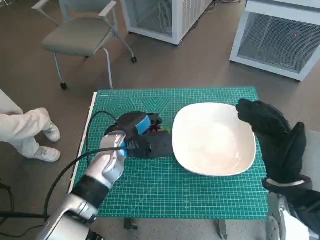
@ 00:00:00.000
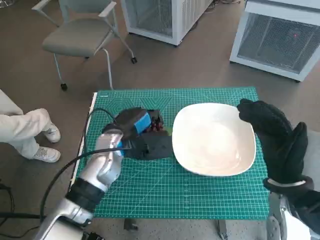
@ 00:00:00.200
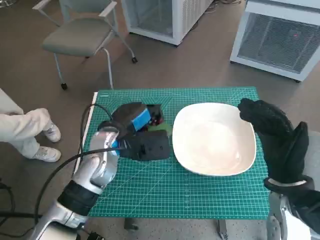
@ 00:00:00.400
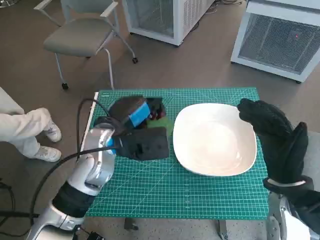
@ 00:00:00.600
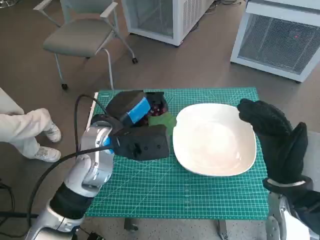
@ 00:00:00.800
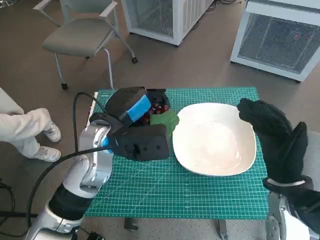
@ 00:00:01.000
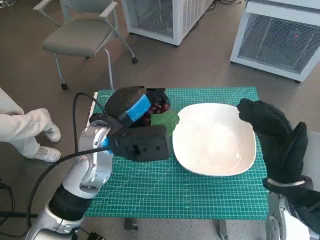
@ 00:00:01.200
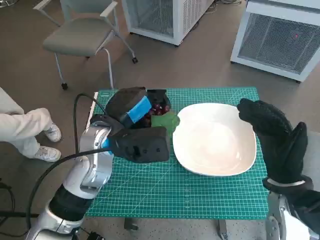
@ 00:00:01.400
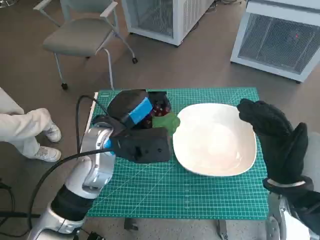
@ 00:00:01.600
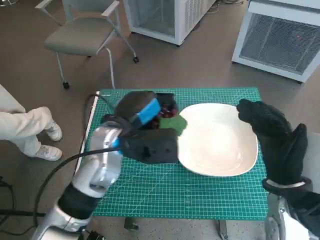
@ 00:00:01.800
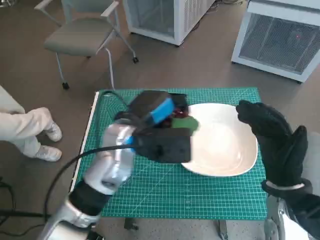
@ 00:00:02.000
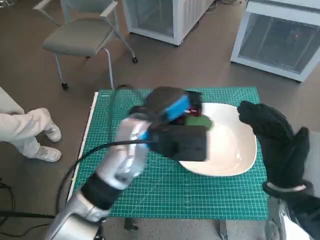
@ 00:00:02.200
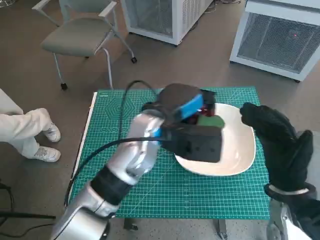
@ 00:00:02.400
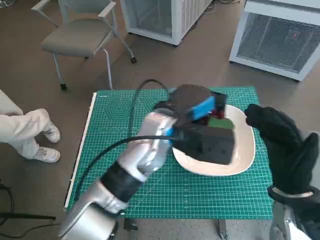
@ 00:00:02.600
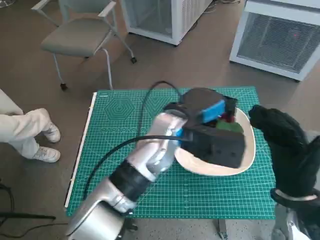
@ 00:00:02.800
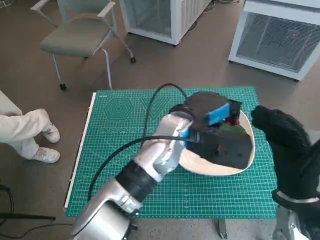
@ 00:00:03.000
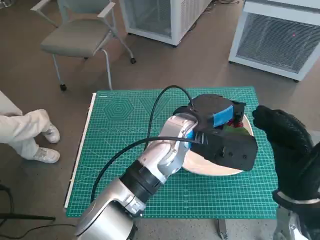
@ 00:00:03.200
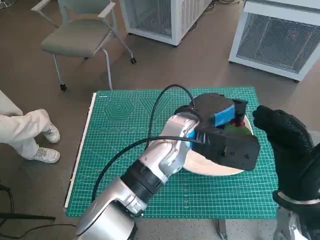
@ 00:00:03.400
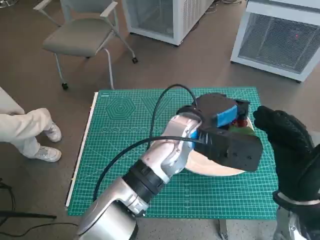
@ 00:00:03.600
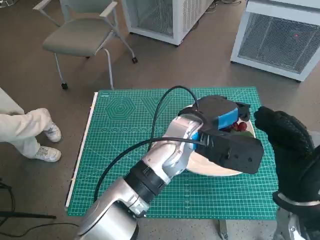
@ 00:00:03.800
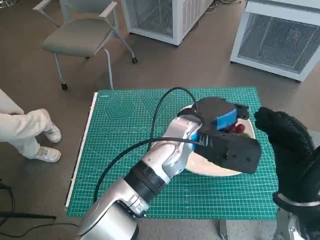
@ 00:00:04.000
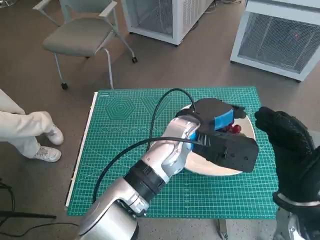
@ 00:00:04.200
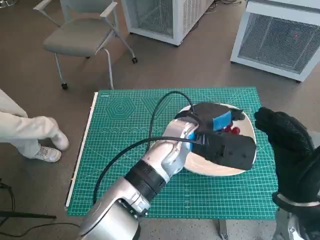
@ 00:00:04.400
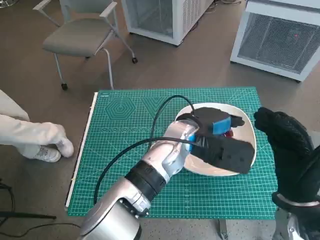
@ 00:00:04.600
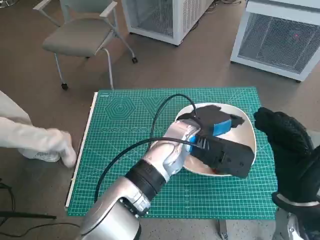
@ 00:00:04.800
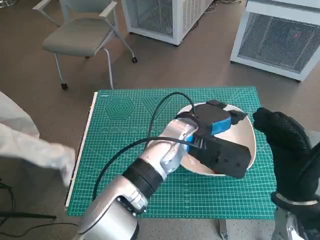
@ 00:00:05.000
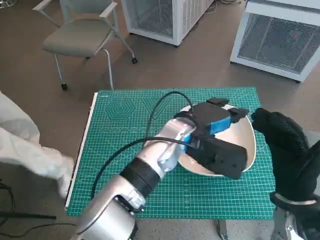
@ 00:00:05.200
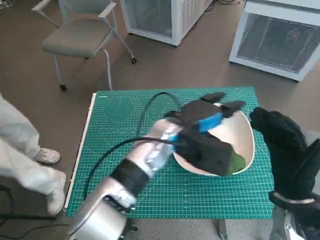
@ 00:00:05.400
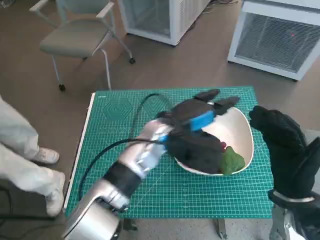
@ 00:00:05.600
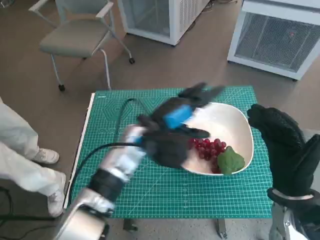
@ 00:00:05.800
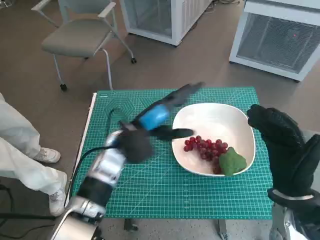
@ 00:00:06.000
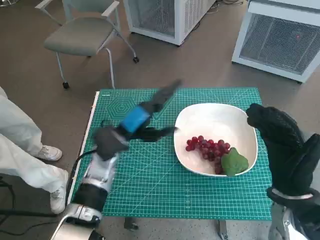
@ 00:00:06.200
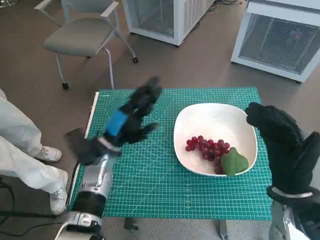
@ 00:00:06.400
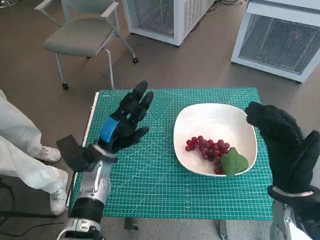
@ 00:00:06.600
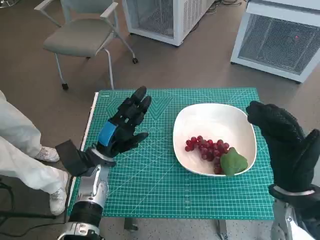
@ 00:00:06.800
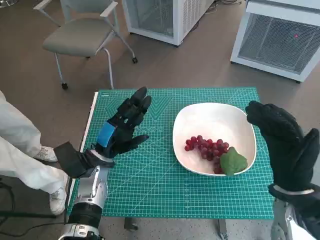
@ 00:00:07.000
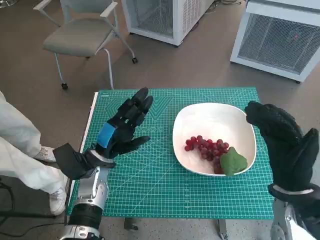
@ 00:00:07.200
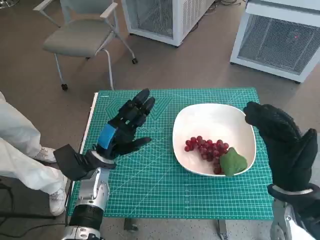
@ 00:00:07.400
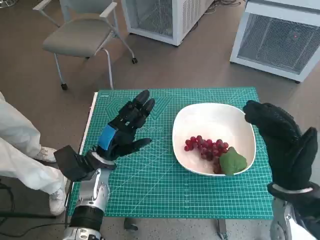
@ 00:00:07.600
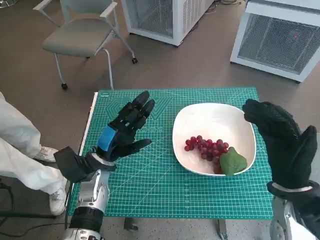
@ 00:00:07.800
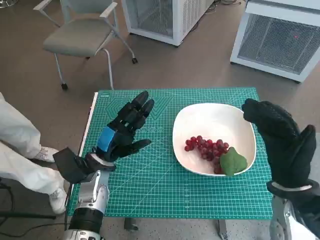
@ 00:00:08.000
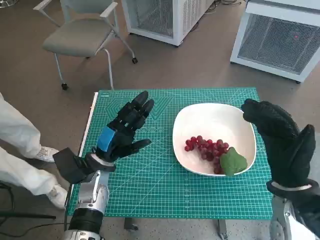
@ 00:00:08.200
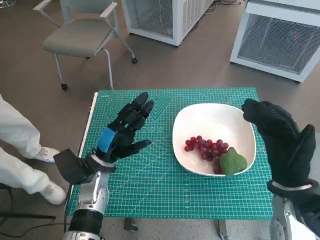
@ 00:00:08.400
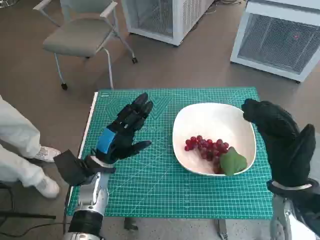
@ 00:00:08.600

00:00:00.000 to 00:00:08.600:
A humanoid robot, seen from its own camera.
Task of the whole recording: Pick up the grapes and put them on the plate.
Step, 00:00:00.000 to 00:00:05.000: Place the grapes in the plate with left hand.
00:00:00.000 to 00:00:01.400: The left hand shifts about 10 cm upward.
00:00:01.400 to 00:00:02.800: The left hand shifts about 10 cm to the right.
00:00:02.800 to 00:00:04.400: There are only small adjustments of the hands.
00:00:04.400 to 00:00:05.800: The left hand goes some 5 cm to the left.
00:00:05.800 to 00:00:07.200: The left hand is displaced to the left and downward by about 15 cm.
00:00:07.200 to 00:00:08.600: Both hands stay put.

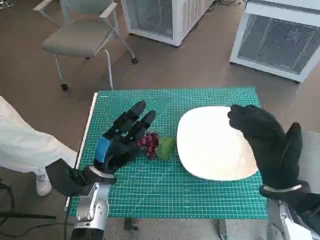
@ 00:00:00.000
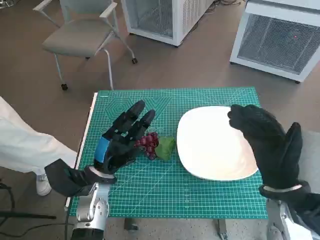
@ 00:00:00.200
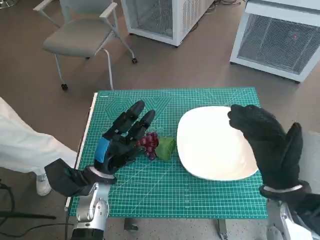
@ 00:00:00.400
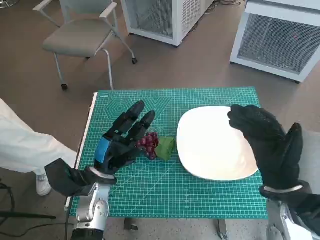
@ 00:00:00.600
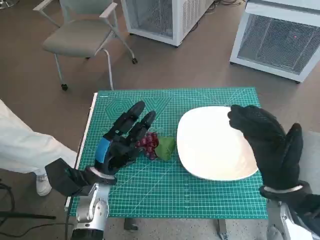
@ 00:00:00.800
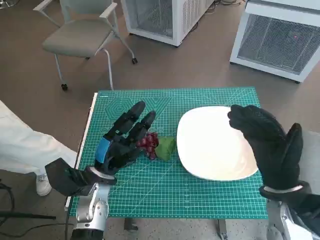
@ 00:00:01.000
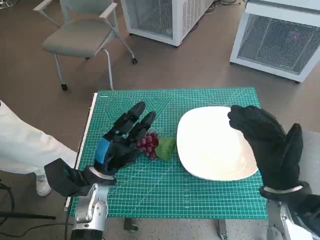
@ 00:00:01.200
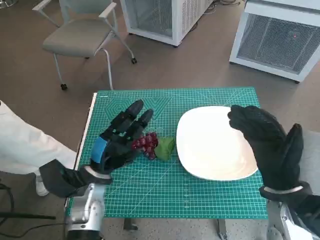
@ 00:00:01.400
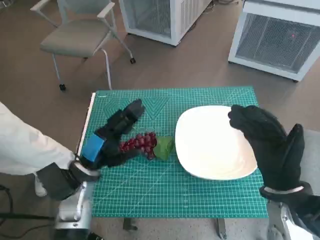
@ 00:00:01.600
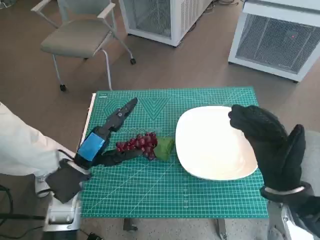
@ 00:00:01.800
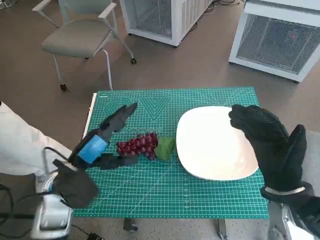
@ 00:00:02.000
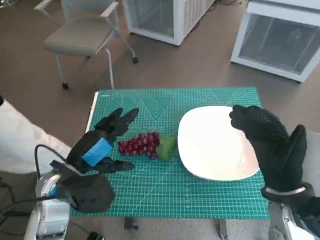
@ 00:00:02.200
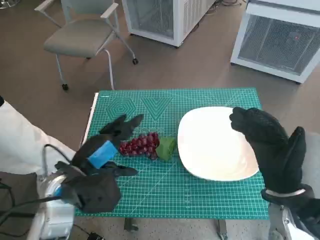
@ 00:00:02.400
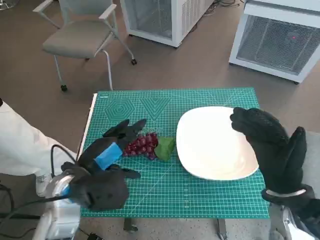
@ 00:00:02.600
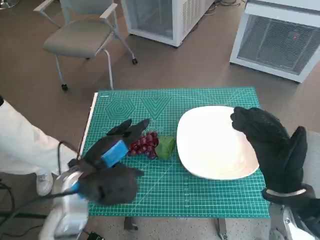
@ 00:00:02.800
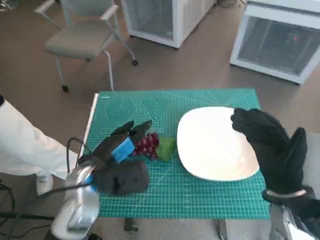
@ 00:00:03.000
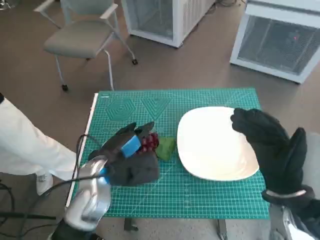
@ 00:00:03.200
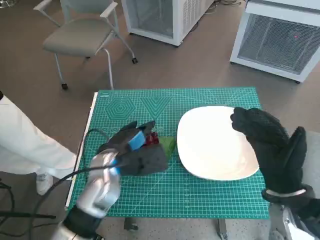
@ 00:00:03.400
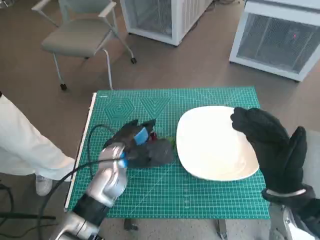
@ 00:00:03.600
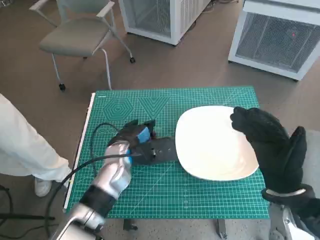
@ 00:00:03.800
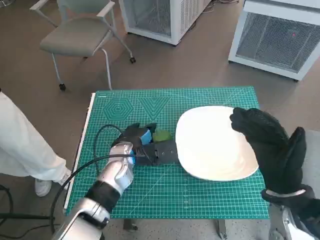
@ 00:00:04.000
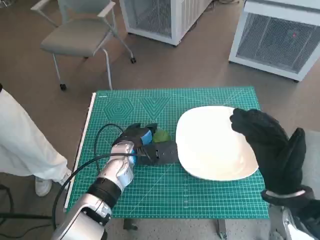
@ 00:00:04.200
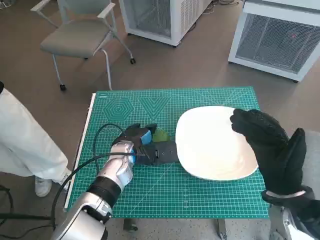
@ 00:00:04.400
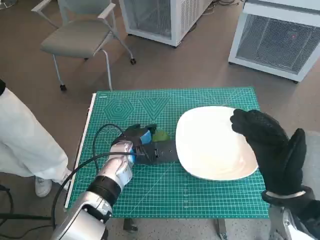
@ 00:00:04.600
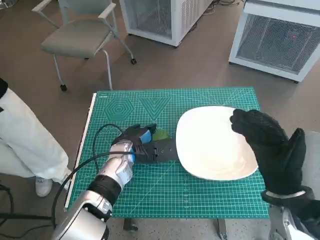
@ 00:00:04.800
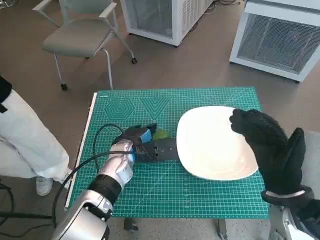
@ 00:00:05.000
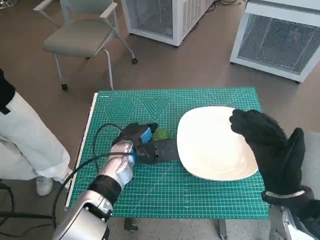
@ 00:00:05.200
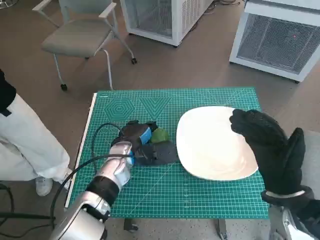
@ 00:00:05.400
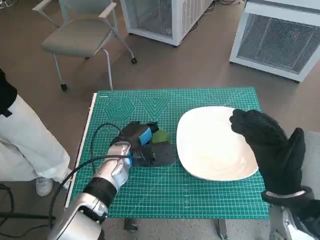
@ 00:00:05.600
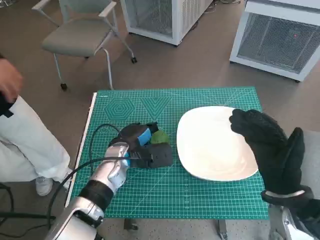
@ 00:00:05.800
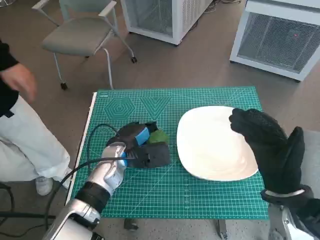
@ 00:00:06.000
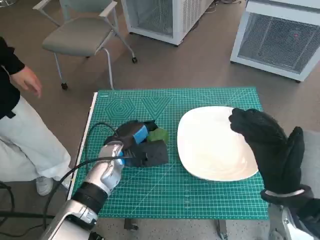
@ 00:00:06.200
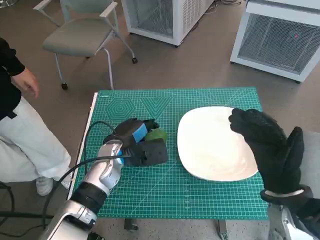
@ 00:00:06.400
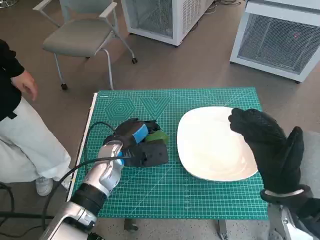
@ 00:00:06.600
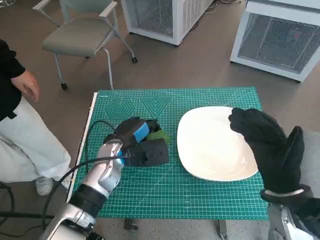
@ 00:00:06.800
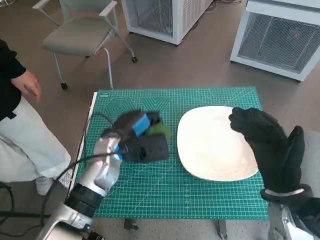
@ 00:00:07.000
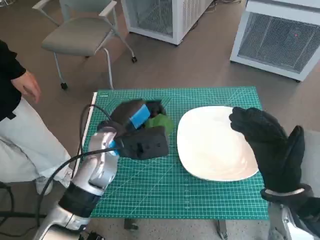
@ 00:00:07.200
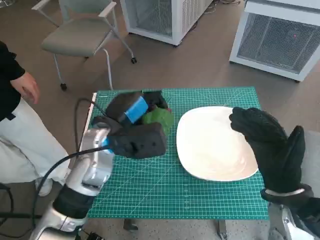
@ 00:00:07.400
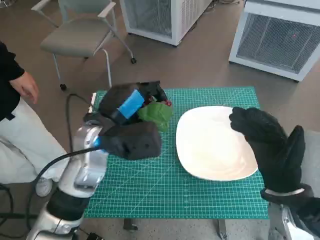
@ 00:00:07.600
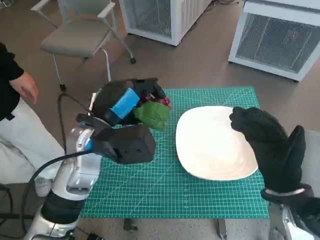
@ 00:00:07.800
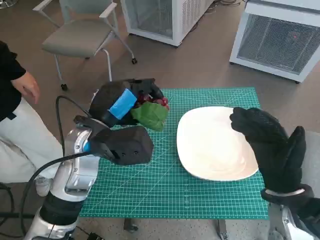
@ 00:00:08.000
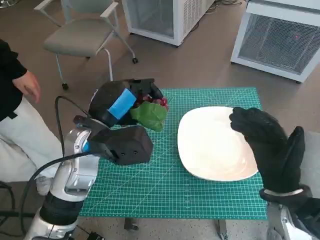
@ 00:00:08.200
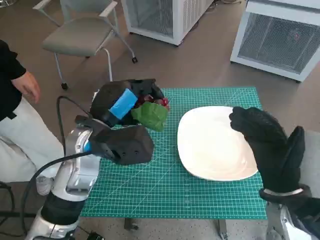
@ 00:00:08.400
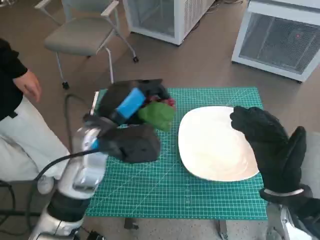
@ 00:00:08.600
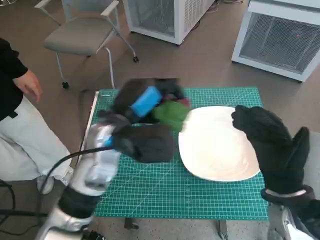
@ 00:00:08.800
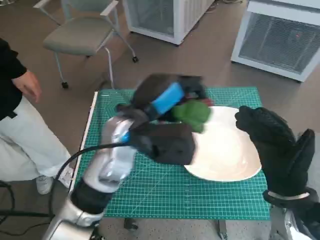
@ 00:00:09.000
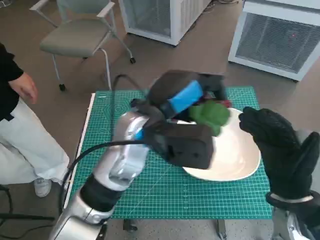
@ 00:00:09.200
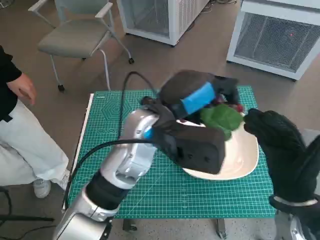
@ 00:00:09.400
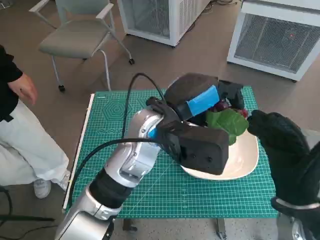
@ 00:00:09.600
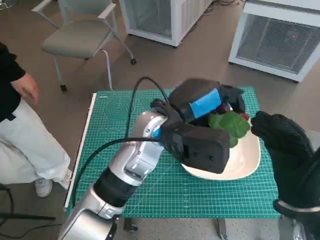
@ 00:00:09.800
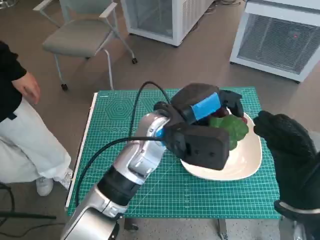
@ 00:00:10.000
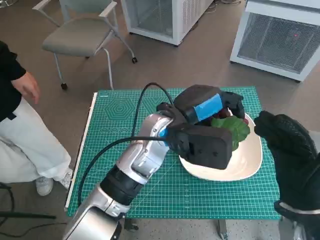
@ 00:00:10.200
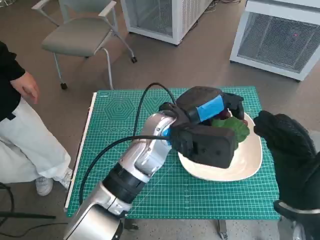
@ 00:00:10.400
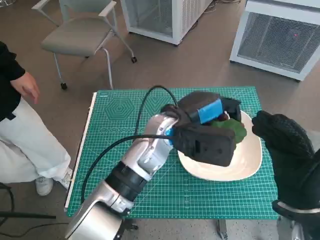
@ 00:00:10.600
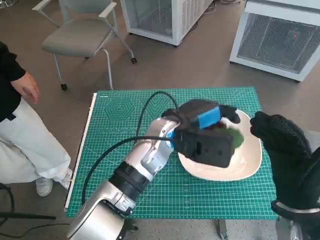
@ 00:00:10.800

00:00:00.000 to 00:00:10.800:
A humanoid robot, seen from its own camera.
Task of the whole recording: Pick up the grapes and put them on the plate.
Step, 00:00:00.000 to 00:00:05.200: Grasp the grapes with left hand.
00:00:01.600 to 00:00:03.000: The left hand is displaced upward by roughly 5 cm.
00:00:03.000 to 00:00:04.600: The left hand moves forward and downward, approximately 10 cm.
00:00:04.600 to 00:00:06.200: The hands stay close to where they were, moving slightly.
00:00:06.200 to 00:00:07.800: The left hand moves upward, some 10 cm.
00:00:07.800 to 00:00:09.200: The left hand moves to the right, approximately 10 cm.
00:00:09.200 to 00:00:10.800: The left hand travels downward by some 5 cm.

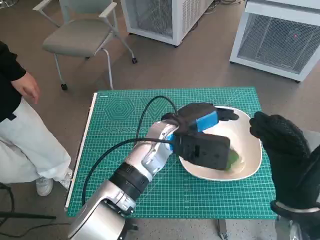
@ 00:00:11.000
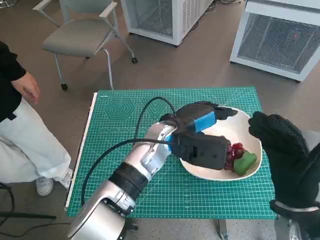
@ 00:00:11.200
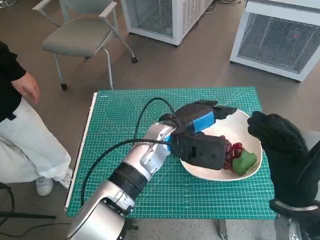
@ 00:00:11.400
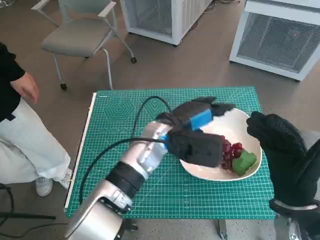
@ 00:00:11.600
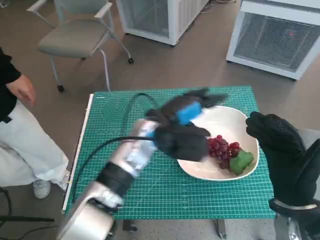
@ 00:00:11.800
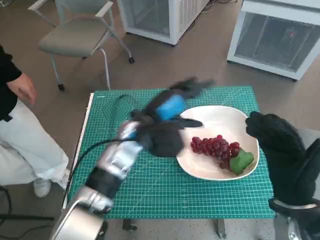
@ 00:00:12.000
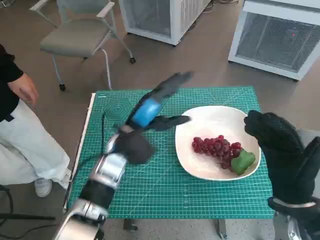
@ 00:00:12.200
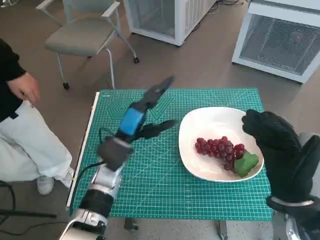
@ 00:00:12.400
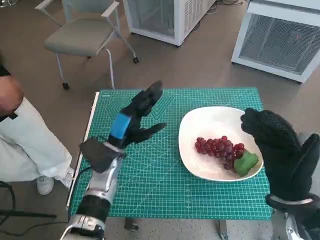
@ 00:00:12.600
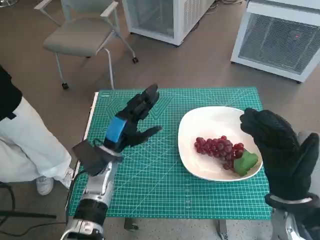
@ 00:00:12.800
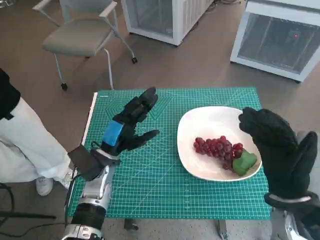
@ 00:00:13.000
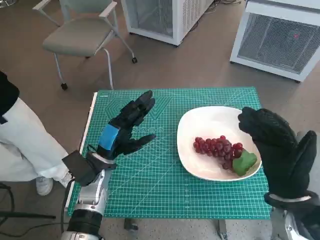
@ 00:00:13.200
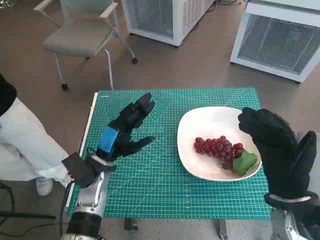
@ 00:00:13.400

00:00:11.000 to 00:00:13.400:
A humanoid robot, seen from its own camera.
Task of the whole recording: Pick up the grapes and put them on the plate.
00:00:11.000 to 00:00:12.200: The left hand moves to the left, approximately 10 cm.
00:00:12.200 to 00:00:13.400: The left hand shifts some 10 cm to the left and downward.
